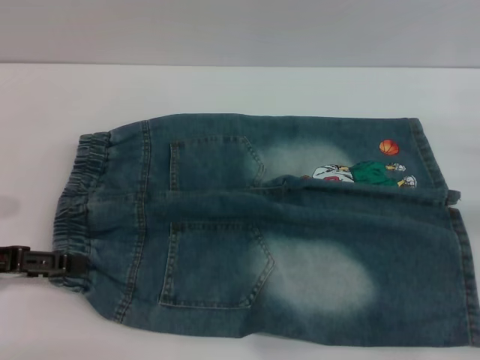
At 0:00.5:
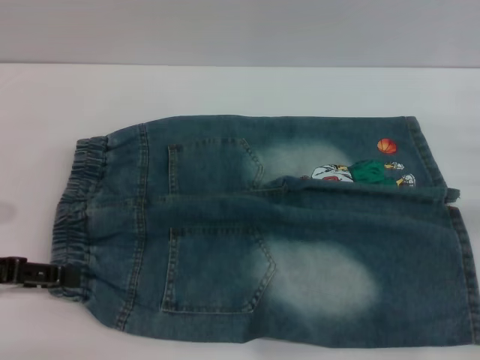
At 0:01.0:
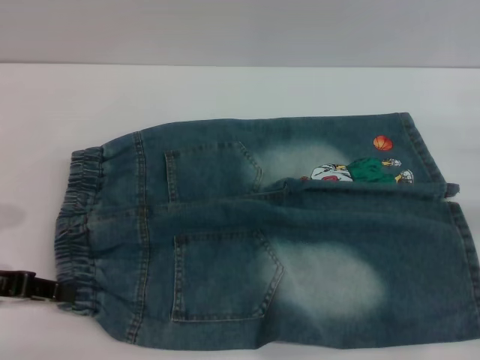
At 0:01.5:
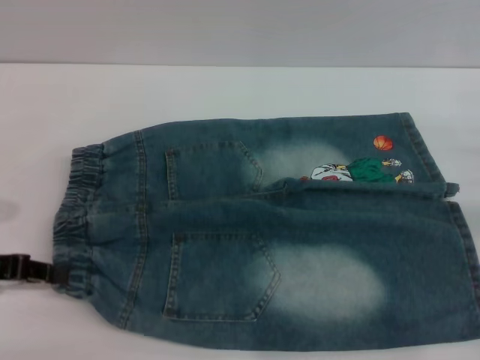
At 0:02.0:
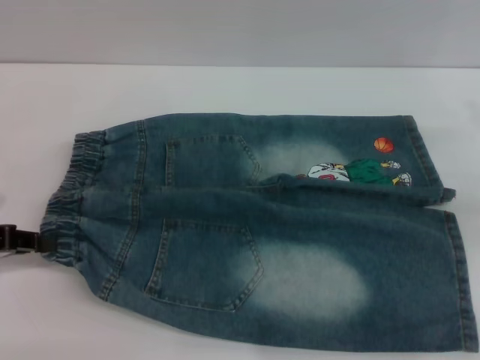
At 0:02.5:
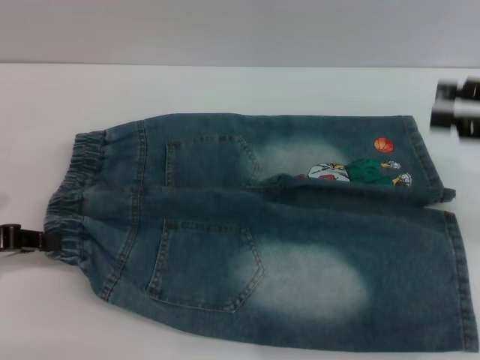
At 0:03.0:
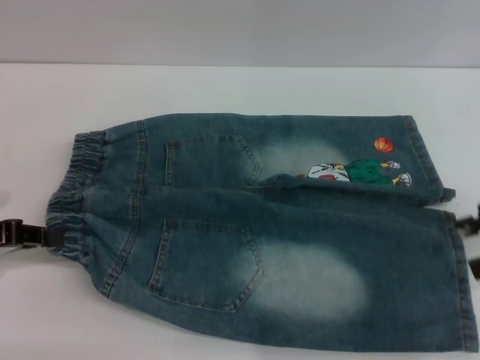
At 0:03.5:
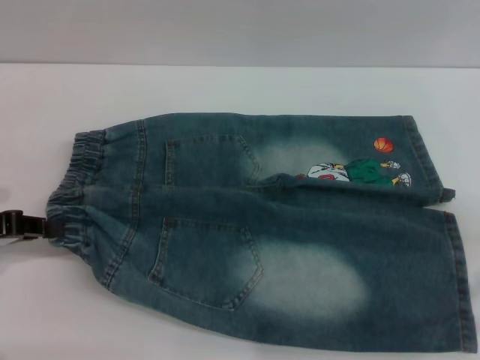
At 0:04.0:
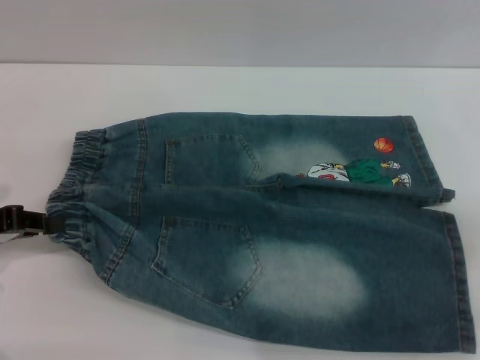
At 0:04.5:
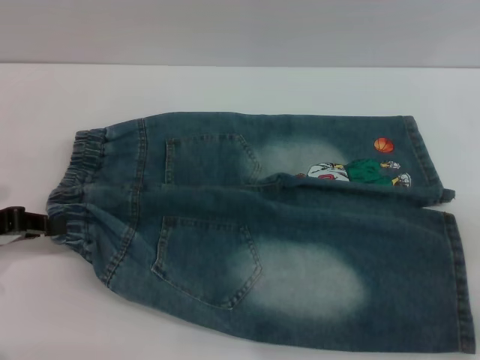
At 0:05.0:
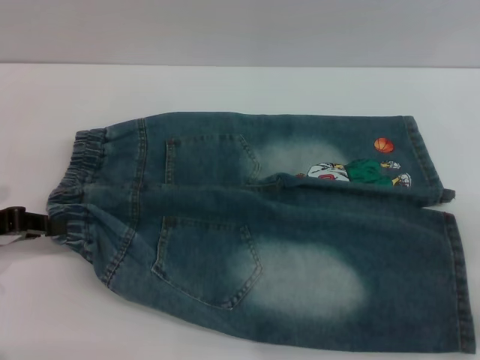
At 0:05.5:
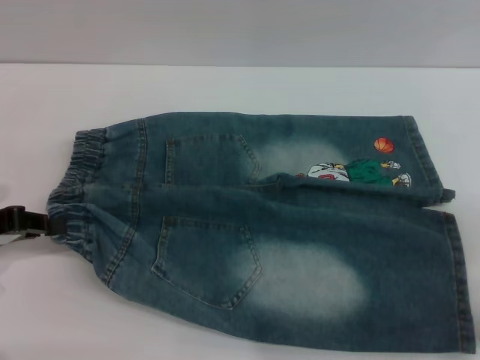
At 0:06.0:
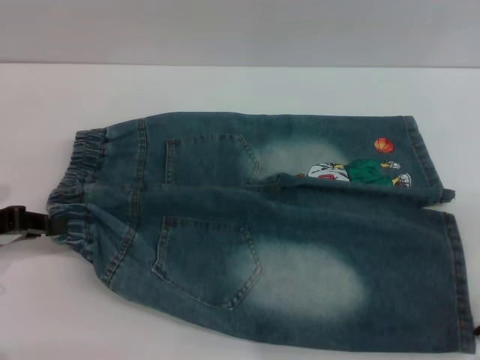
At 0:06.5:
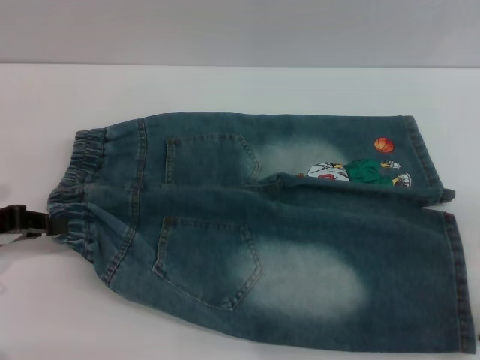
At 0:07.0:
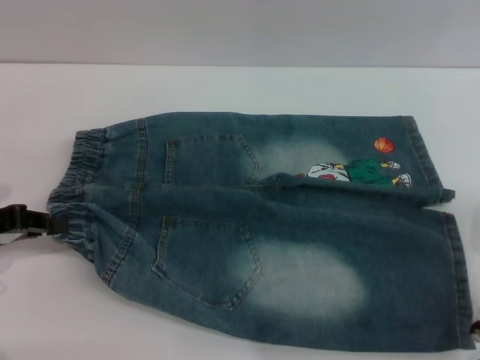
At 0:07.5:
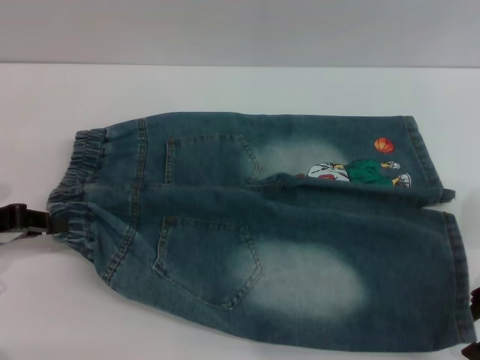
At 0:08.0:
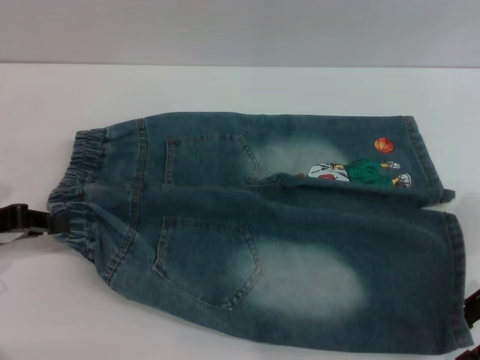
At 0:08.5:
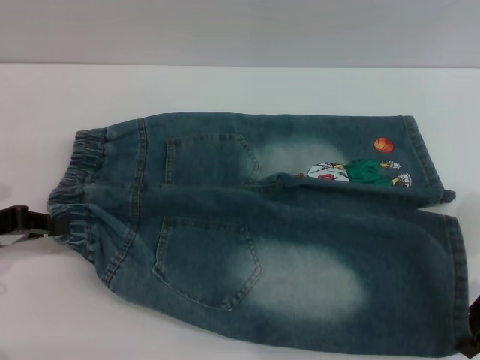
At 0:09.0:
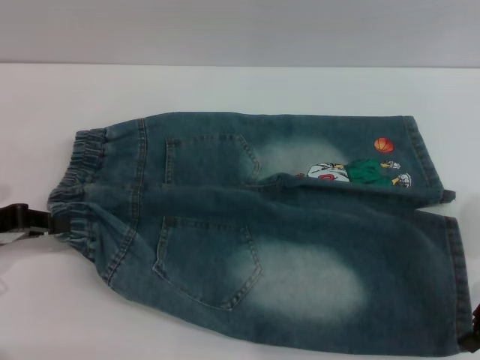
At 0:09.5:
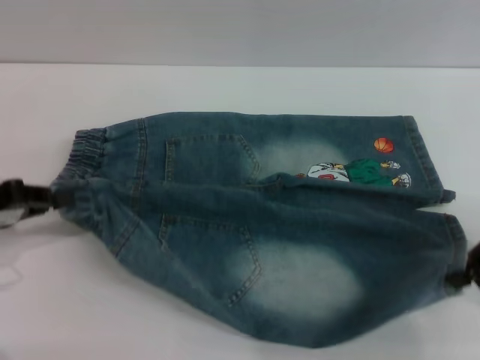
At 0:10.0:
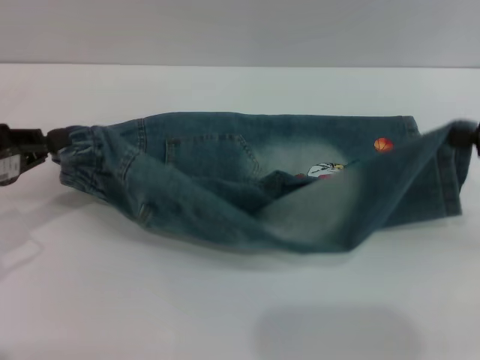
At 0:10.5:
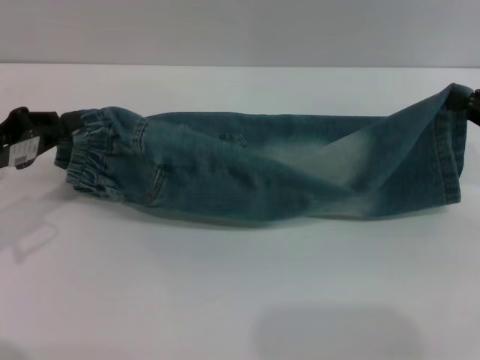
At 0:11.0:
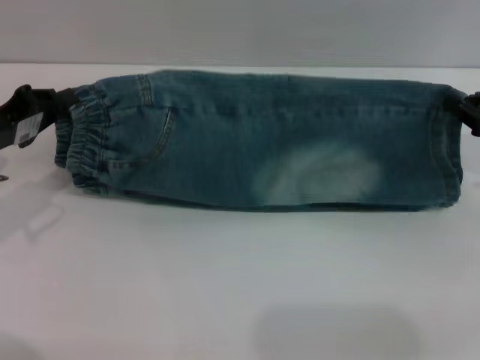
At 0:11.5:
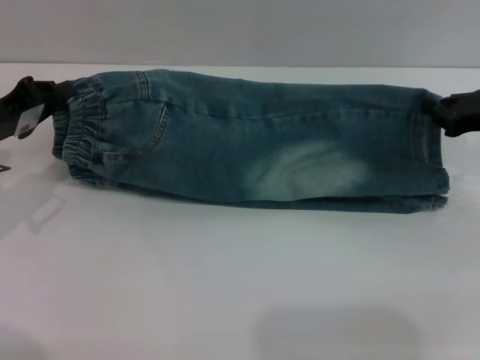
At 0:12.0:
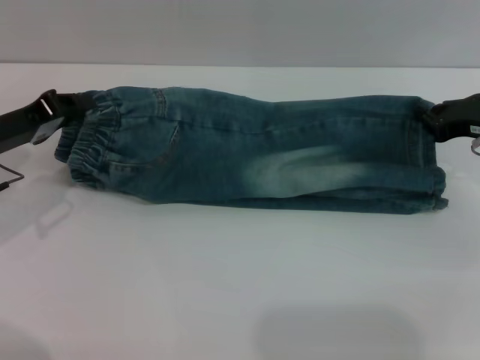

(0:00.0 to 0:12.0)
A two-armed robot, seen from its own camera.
0:00.0 - 0:02.0: The left gripper closes. The right gripper moves upward, about 5 cm.
0:02.0 - 0:04.0: The right gripper is displaced backward by roughly 5 cm.
0:06.0 - 0:08.0: There are only small adjustments of the grippers.
0:08.0 - 0:10.0: The right gripper travels upward by roughly 5 cm, and closes.
0:10.0 - 0:12.0: The left gripper travels forward by some 5 cm. The right gripper shifts some 10 cm downward and forward.

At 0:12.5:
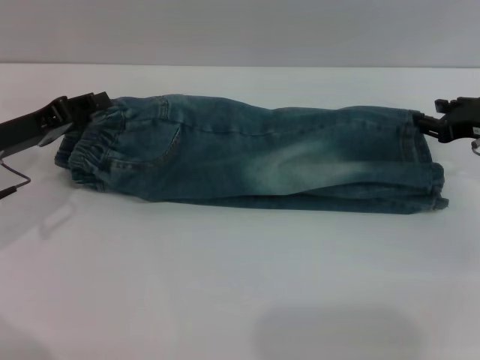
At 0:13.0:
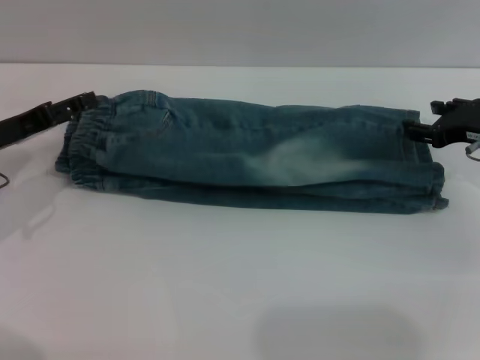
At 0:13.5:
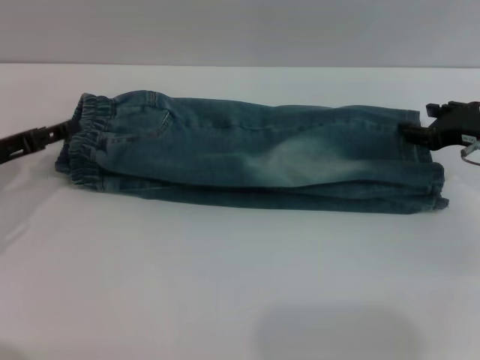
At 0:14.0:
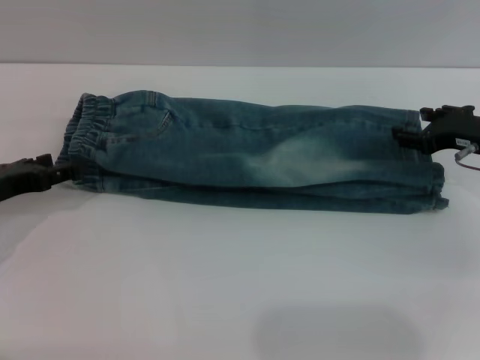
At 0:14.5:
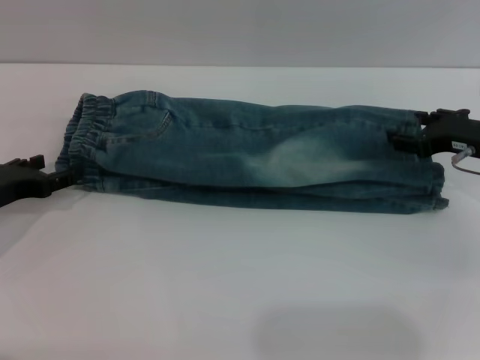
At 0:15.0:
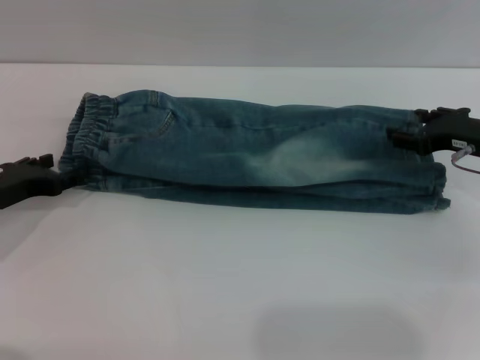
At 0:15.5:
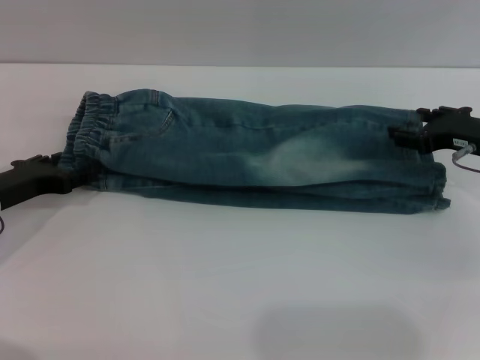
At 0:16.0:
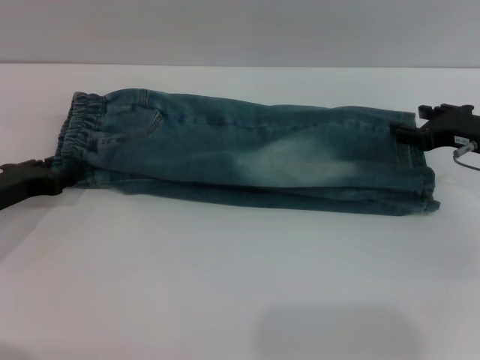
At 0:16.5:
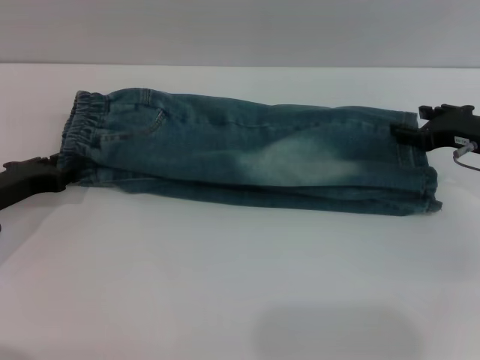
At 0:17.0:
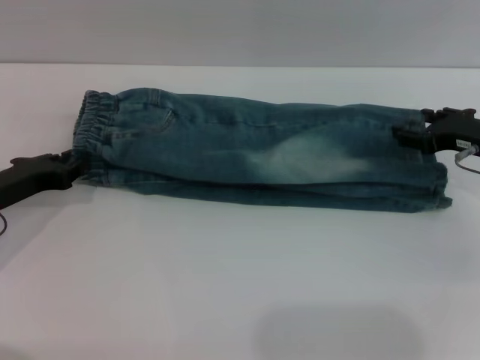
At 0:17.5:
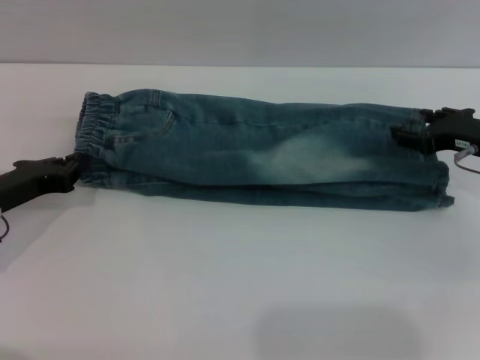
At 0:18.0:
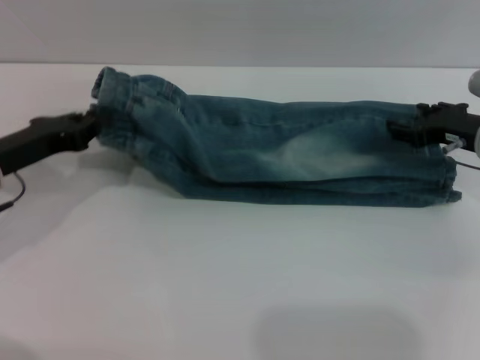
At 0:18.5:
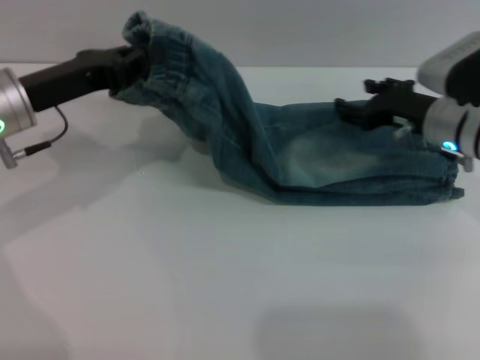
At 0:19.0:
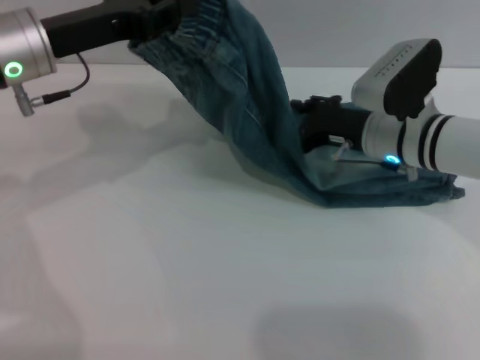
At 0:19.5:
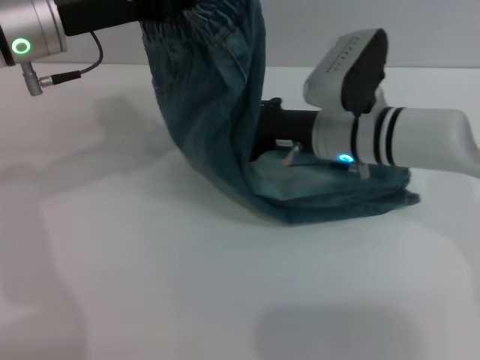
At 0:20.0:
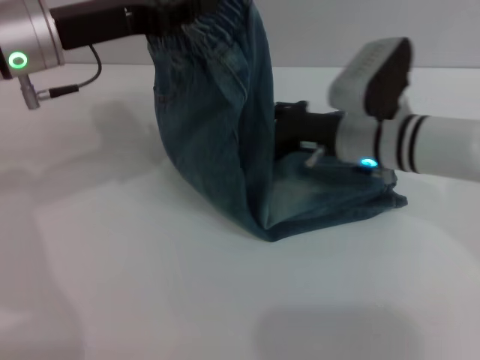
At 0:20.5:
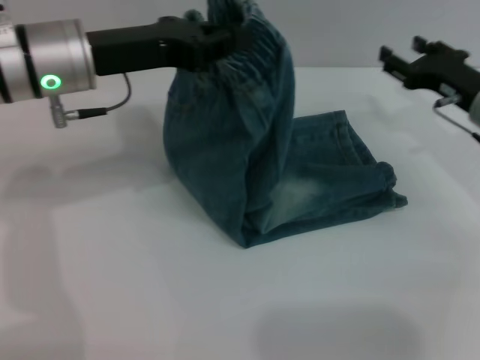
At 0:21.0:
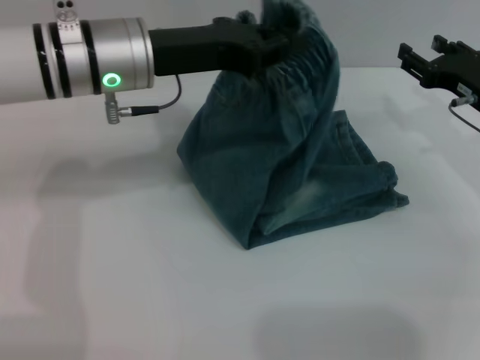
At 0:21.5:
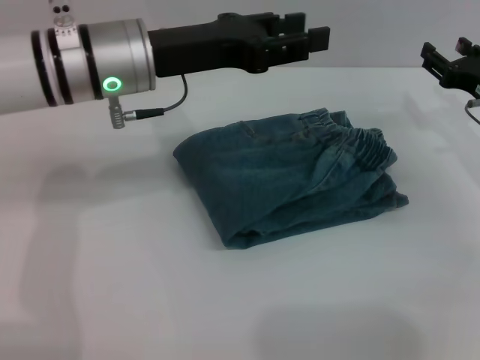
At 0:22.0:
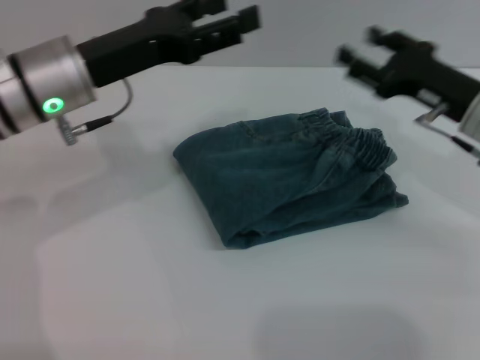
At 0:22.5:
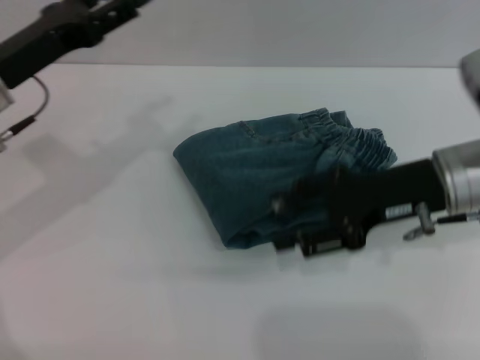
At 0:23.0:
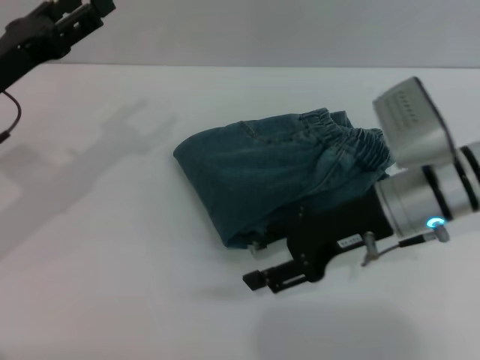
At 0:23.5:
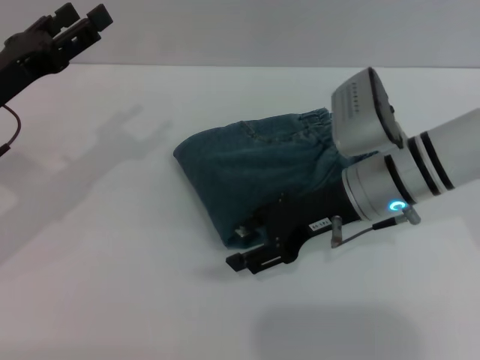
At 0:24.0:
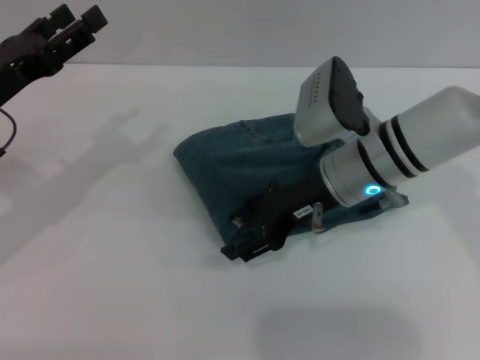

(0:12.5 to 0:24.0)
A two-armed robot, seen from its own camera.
Step, 0:14.0 - 0:21.0: Fold the pants from left to right with the left gripper.
0:12.5 - 0:14.5: The left gripper changes place by some 5 cm, and opens its fingers; the right gripper opens up.
0:14.5 - 0:16.5: The left gripper closes its fingers.
0:16.5 - 0:18.5: The right gripper goes roughly 5 cm to the left, while the left gripper heads upward and to the right, covering some 10 cm, and closes.
0:18.5 - 0:20.0: The right gripper is displaced to the left by about 10 cm. Meanwhile the left gripper goes approximately 5 cm upward.
0:20.0 - 0:22.0: The left gripper opens up; the right gripper moves to the right, some 10 cm.
0:22.0 - 0:24.0: Both grippers travel together to the left, some 10 cm.

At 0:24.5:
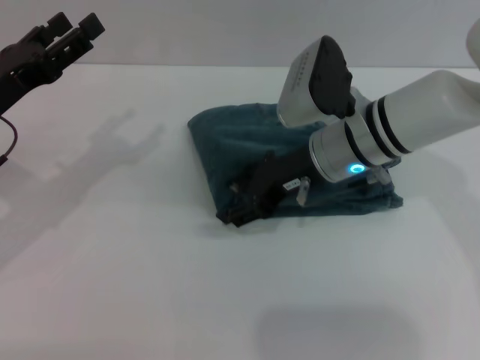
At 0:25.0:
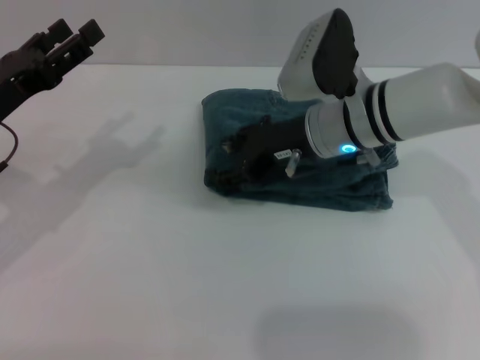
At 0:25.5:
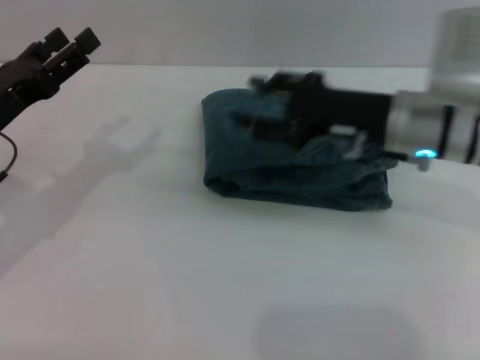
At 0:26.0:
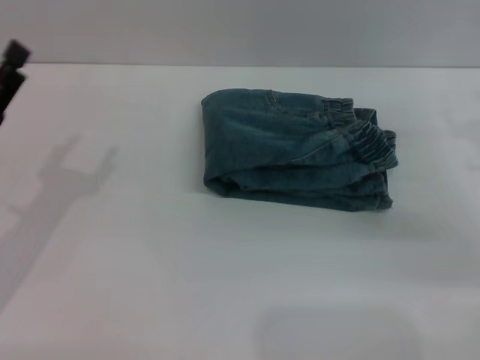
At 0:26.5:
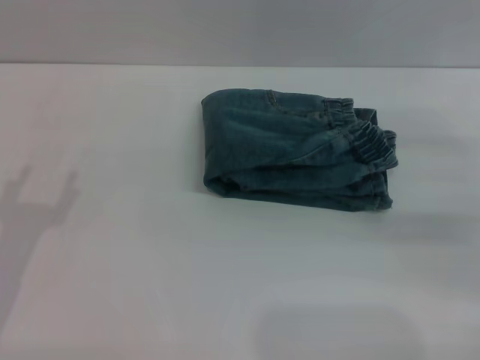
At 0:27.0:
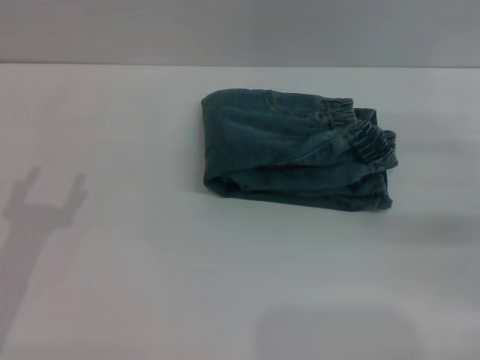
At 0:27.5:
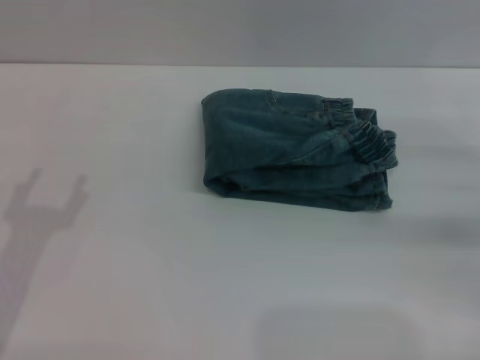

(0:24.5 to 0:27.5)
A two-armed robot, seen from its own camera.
0:24.5 - 0:26.0: The left gripper is displaced backward by roughly 5 cm; the right gripper heads to the right, covering some 20 cm.
0:26.0 - 0:27.5: The right gripper changes place by about 5 cm; the left gripper moves backward, about 5 cm.
